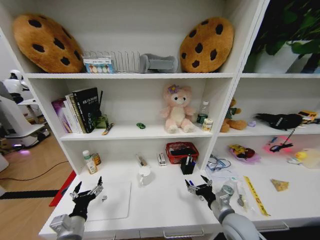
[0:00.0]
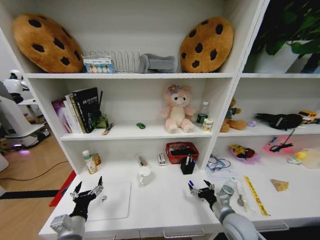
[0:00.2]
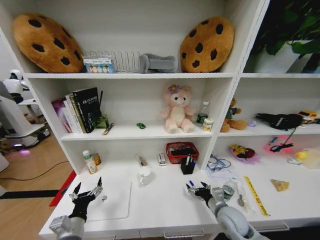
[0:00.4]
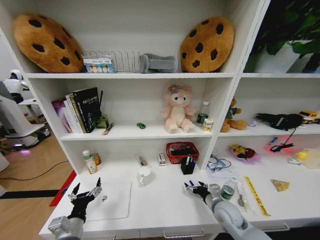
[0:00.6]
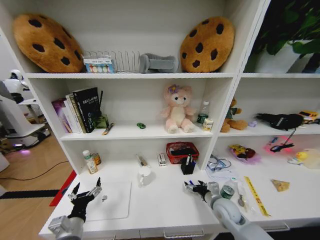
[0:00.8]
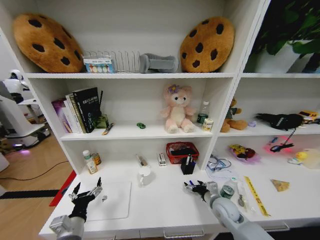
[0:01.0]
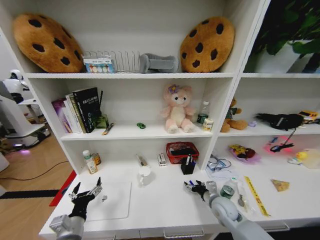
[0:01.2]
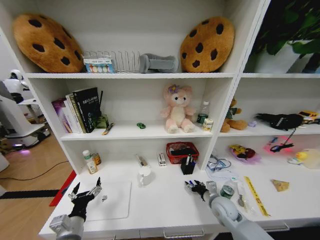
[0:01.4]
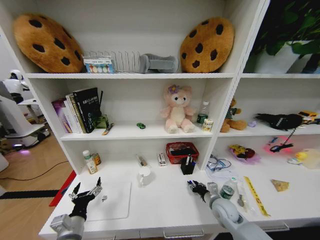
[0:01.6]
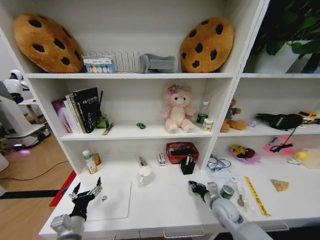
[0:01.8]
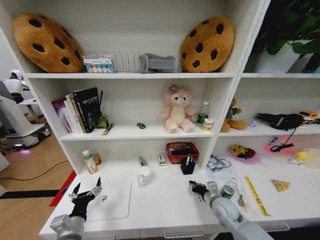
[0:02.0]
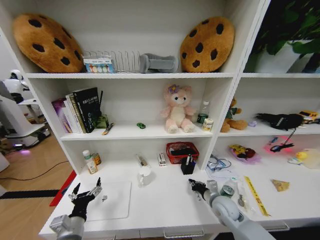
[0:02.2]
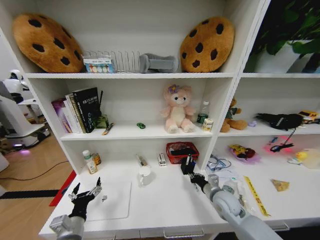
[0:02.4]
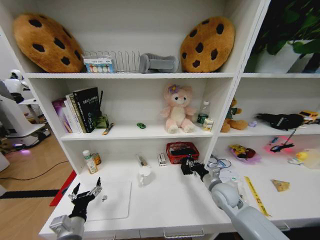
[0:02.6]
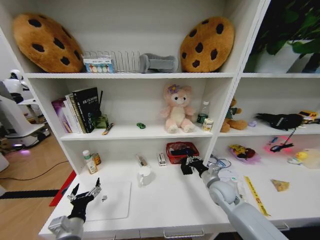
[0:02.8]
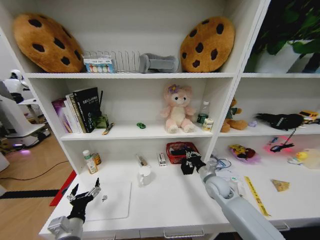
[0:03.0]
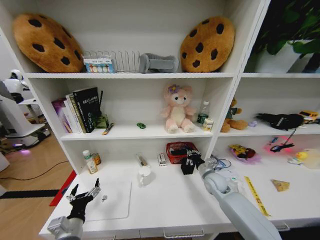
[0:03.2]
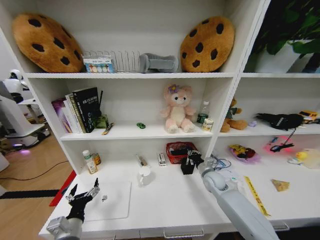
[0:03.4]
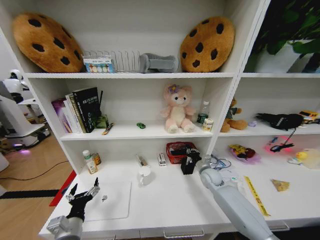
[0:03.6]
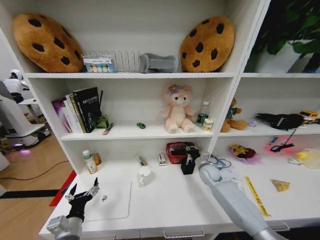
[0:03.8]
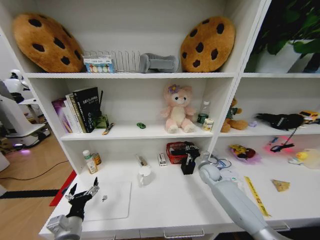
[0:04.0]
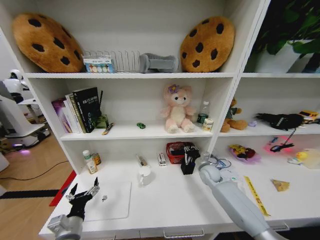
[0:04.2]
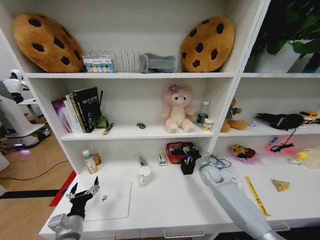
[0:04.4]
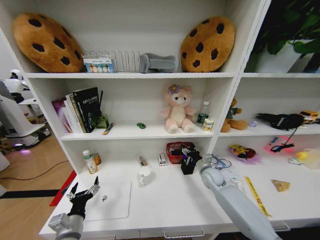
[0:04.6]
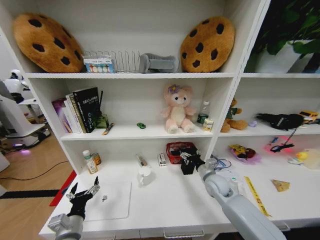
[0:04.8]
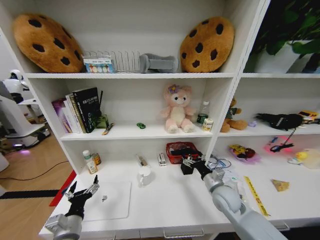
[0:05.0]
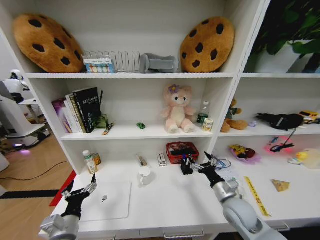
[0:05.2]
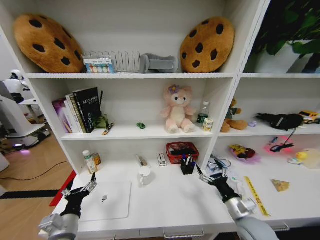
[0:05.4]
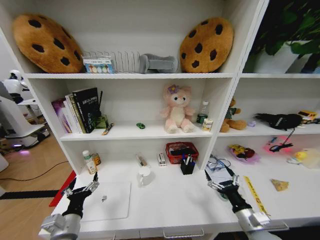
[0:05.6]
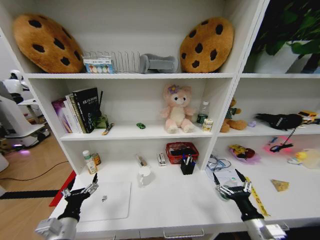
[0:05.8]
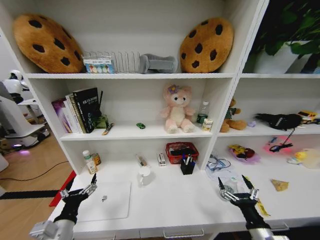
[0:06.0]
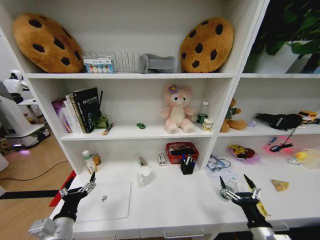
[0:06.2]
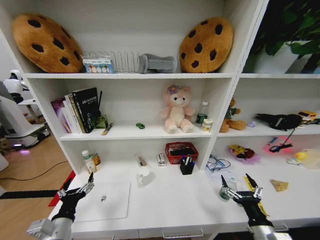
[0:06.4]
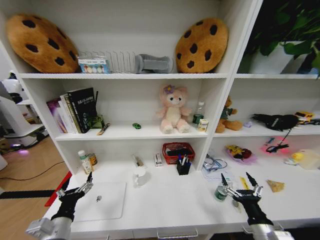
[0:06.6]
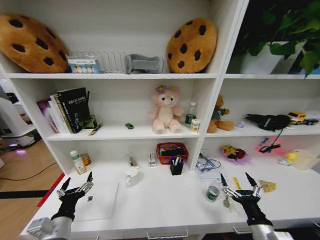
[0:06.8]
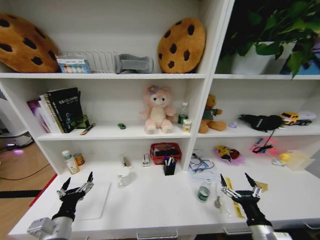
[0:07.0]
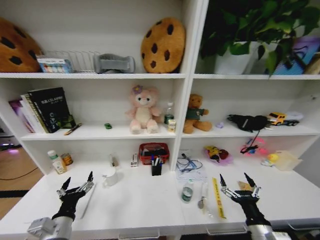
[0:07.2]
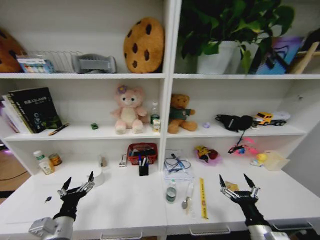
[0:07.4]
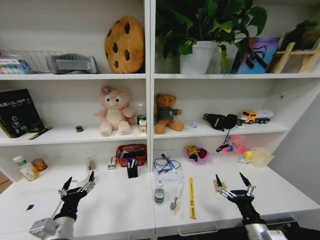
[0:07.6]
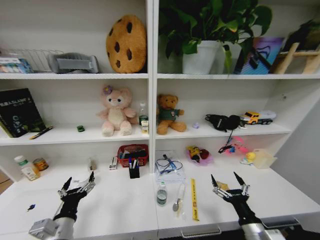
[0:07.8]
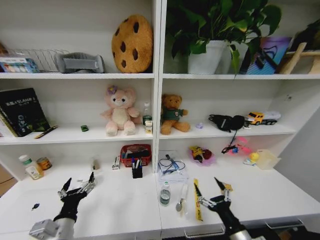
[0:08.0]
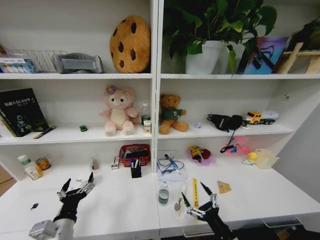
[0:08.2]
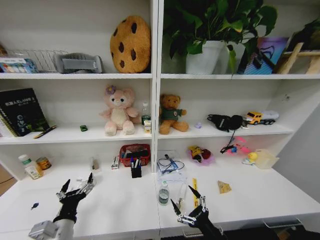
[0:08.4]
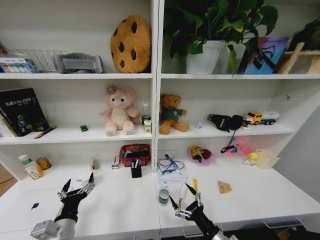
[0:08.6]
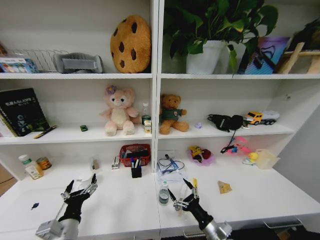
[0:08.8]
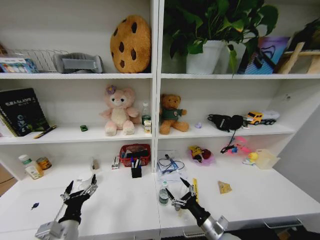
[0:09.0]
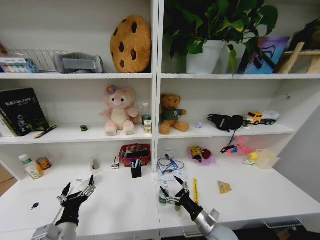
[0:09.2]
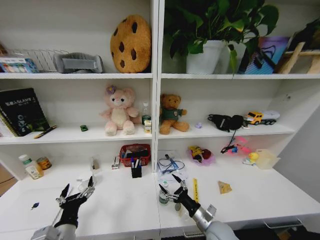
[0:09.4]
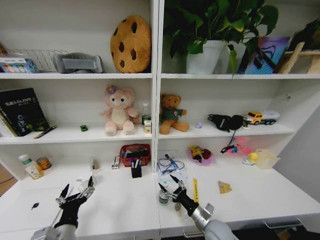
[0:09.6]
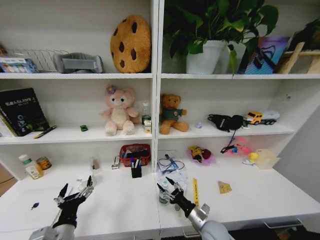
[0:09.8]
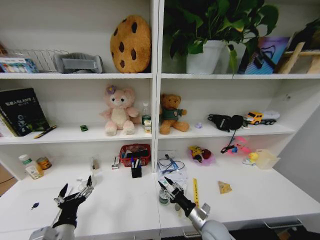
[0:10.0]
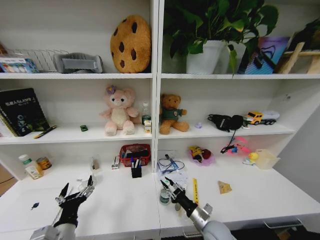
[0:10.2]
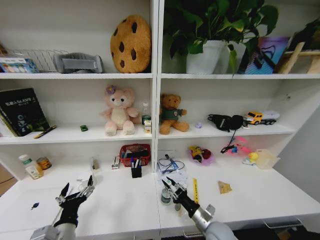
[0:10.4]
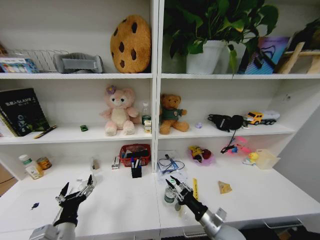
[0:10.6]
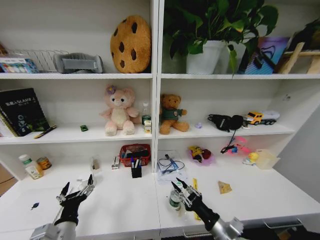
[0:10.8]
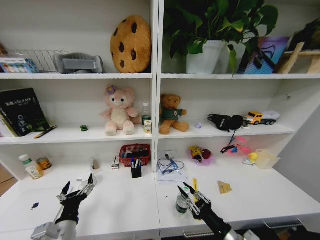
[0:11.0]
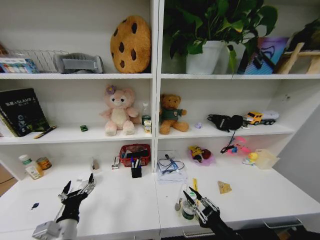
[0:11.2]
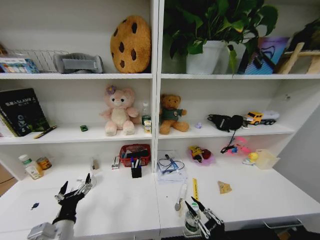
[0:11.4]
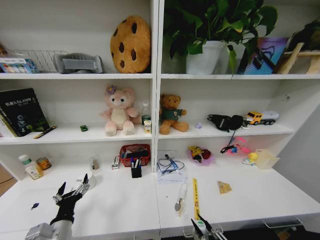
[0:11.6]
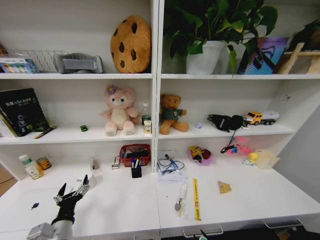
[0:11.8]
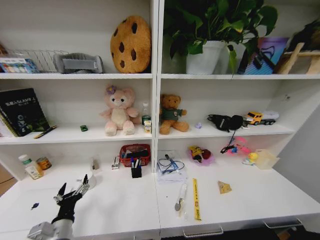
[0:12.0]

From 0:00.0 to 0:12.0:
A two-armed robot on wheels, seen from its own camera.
Task of the whole recording: Organize the objects on the table.
From 0:00.0 to 0:01.6: The right gripper is displaced forward and downward by some 10 cm, and closes.
From 0:01.6 to 0:03.0: The right gripper shifts approximately 10 cm forward and upward, and closes.
From 0:03.0 to 0:04.4: The right gripper heads forward, covering approximately 10 cm, and opens.
From 0:04.4 to 0:06.0: The left gripper ends up some 5 cm from where it was. Meanwhile the right gripper goes approximately 35 cm backward, and opens.
From 0:07.6 to 0:09.0: The right gripper travels to the left by about 10 cm.
From 0:09.0 to 0:10.4: The right gripper closes its fingers.
From 0:10.4 to 0:12.0: The right gripper moves backward, about 25 cm.

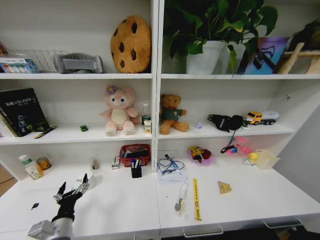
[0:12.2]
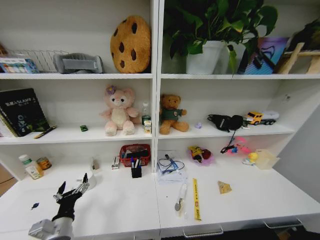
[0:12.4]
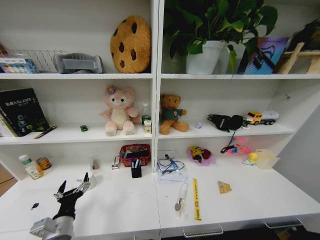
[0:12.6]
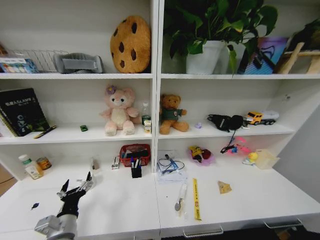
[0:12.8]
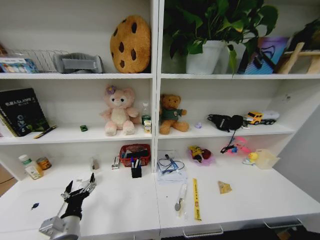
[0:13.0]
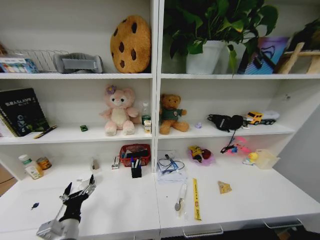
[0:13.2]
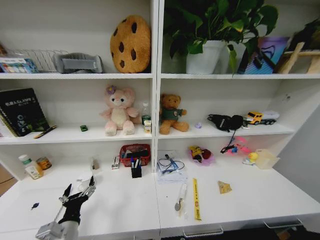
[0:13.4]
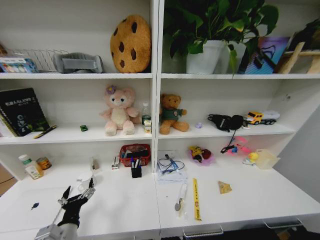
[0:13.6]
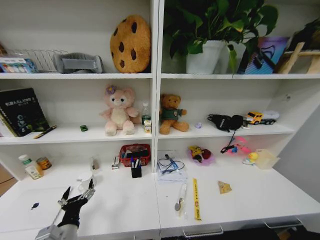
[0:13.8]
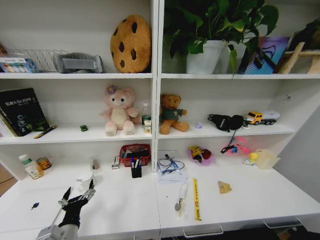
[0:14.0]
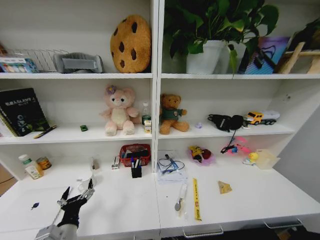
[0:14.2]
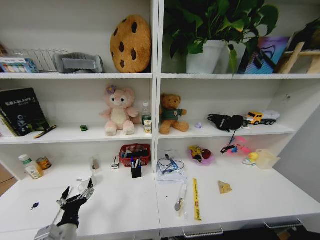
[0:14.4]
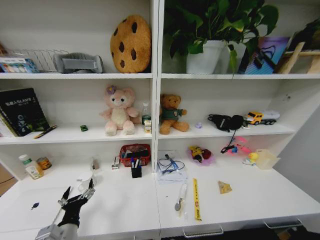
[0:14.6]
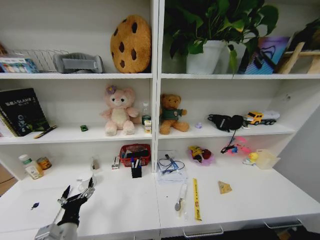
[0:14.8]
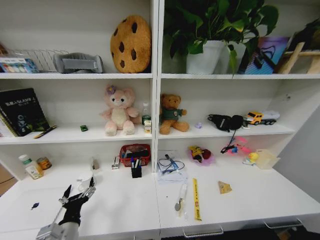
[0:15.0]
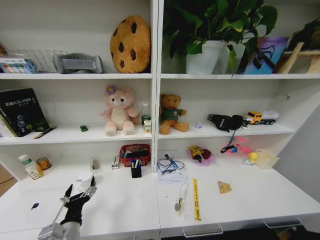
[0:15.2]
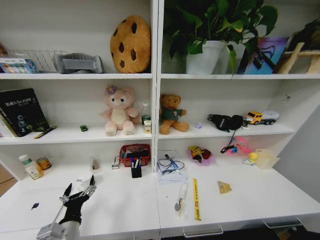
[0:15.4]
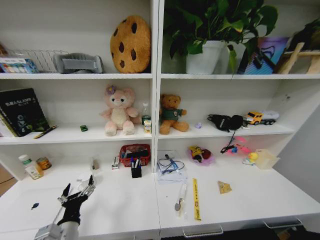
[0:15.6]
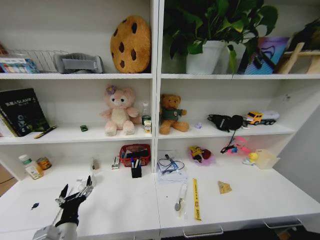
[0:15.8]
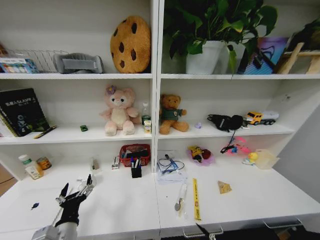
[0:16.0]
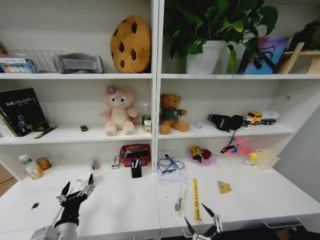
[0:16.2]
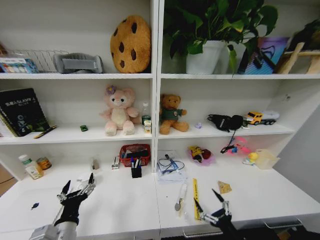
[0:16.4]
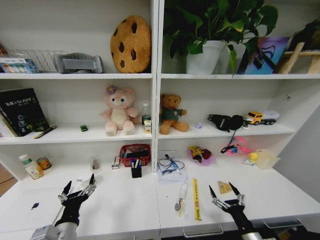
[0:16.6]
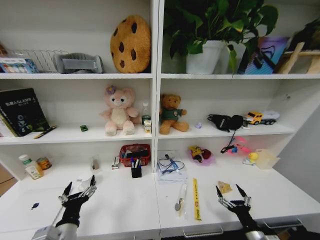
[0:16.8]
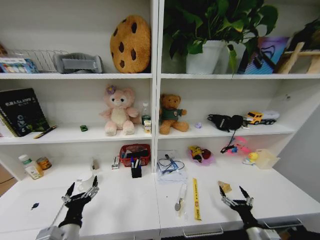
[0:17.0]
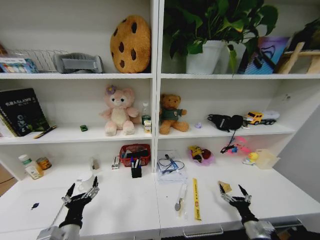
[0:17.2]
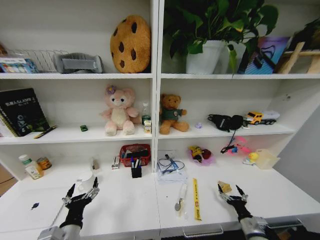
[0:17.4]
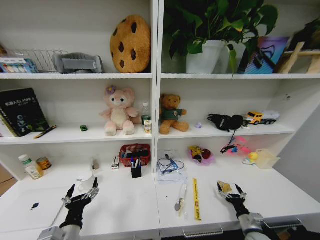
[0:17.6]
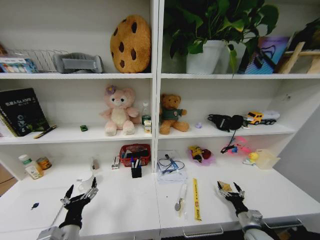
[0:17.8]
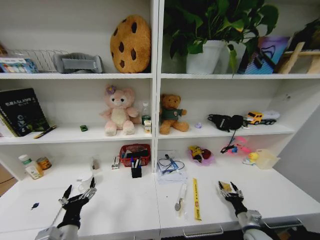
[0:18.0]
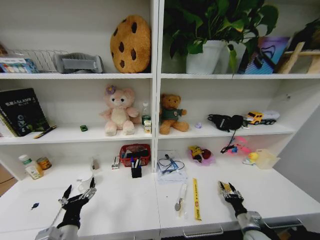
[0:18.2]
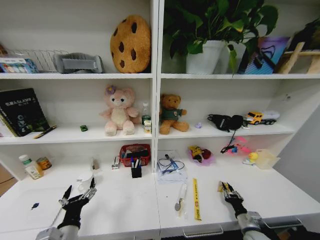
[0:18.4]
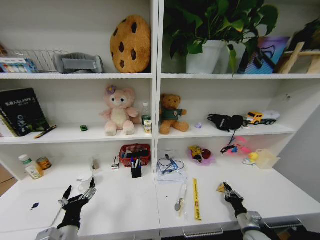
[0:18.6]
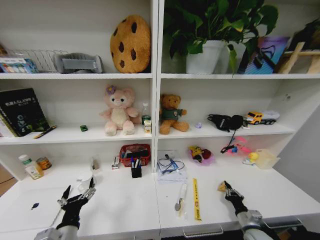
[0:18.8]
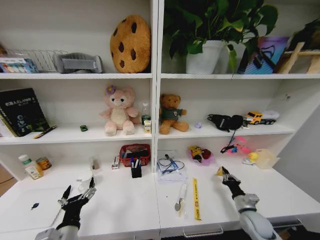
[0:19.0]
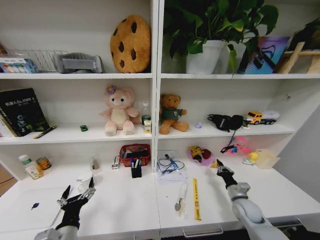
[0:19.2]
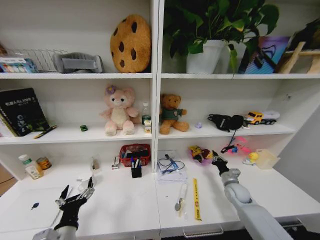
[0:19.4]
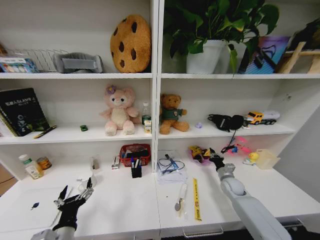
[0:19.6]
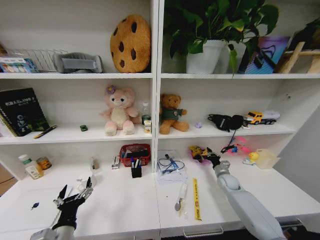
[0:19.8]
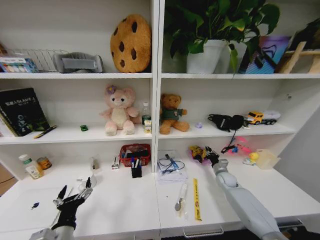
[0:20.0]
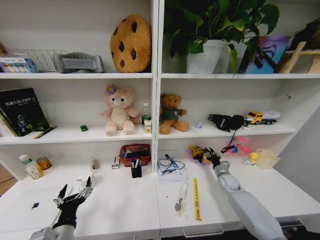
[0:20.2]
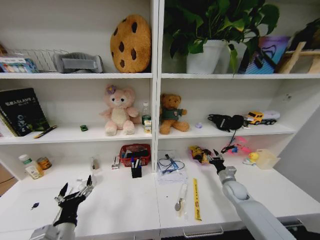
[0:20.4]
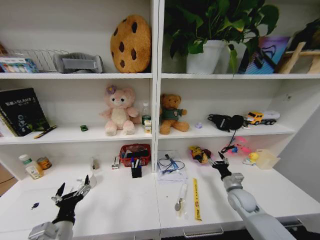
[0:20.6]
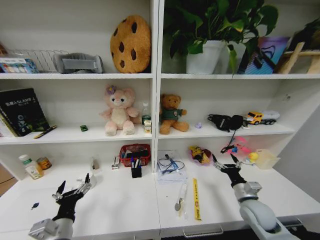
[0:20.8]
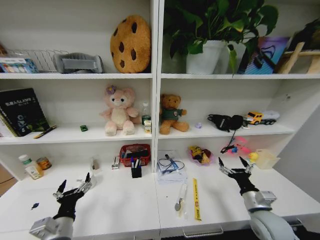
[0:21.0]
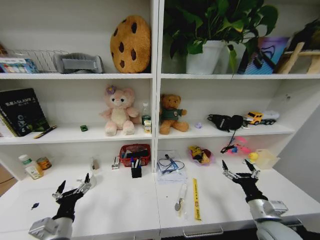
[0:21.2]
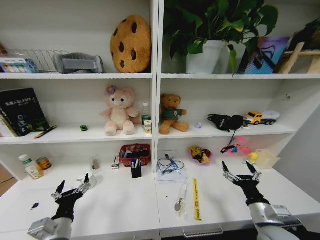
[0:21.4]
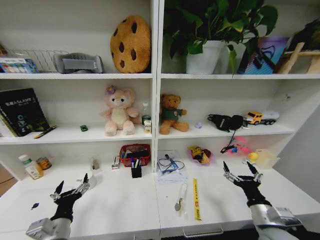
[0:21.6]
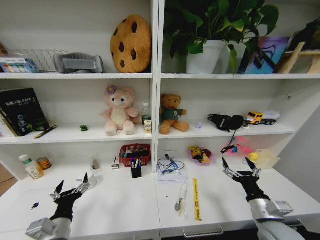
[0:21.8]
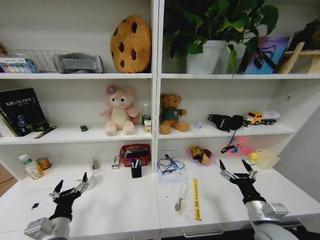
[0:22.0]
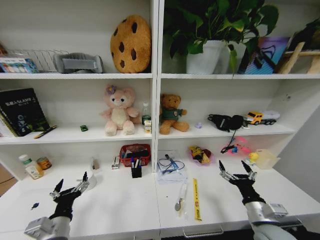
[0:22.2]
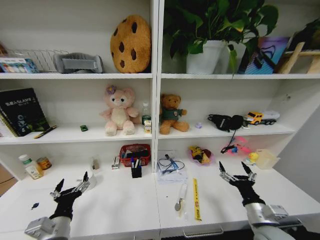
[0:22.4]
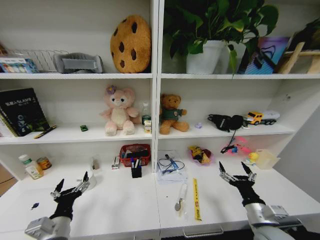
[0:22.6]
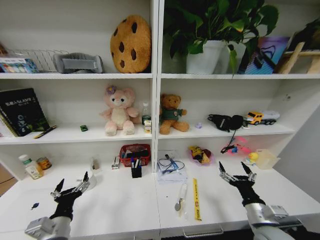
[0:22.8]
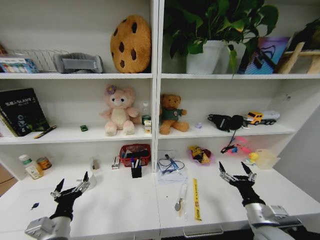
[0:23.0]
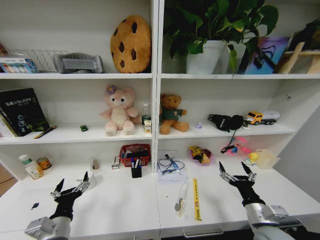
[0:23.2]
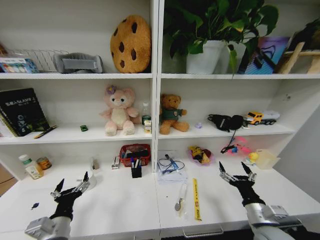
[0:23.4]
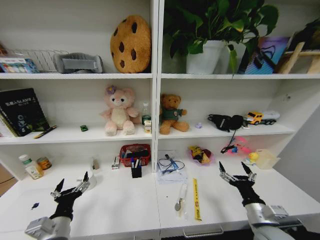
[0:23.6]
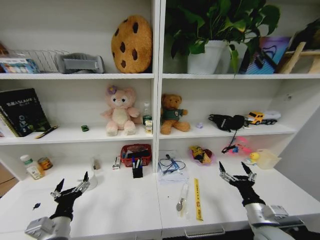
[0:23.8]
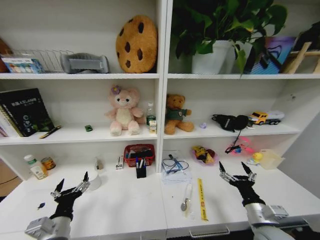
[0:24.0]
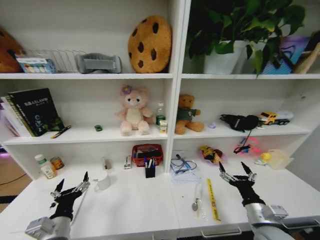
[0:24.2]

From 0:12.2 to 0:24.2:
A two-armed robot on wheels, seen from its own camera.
Task of the whole recording: Organize the objects on the table.
From 0:15.2 to 0:16.6: The right gripper goes approximately 25 cm upward.
From 0:16.6 to 0:18.2: The right gripper shifts approximately 15 cm downward, forward and to the right, and closes up.
From 0:18.2 to 0:19.8: The right gripper is displaced forward by about 25 cm, and closes.
From 0:19.8 to 0:21.2: The right gripper is displaced backward and upward by approximately 25 cm, and opens.
From 0:21.2 to 0:22.6: There are only small adjustments of the grippers.
